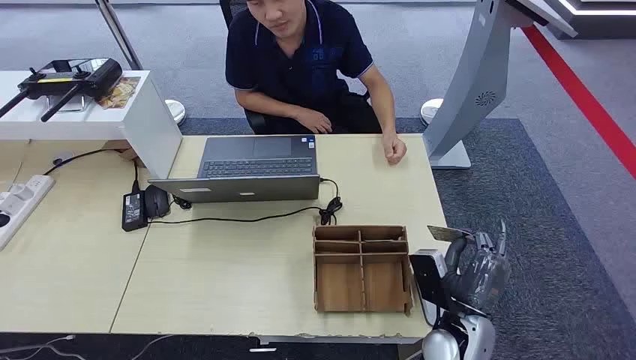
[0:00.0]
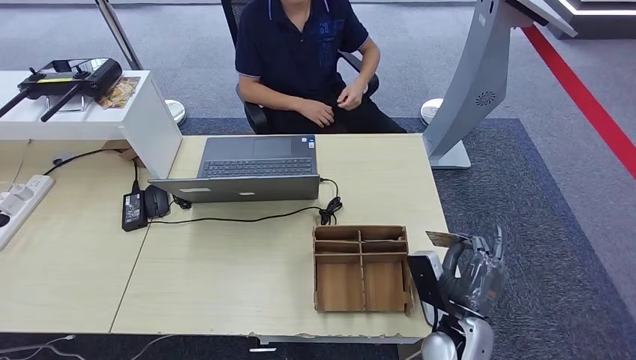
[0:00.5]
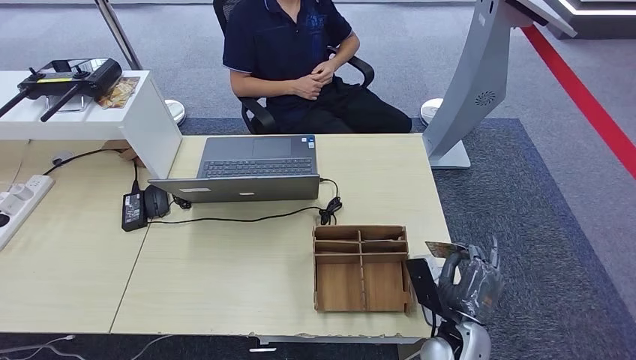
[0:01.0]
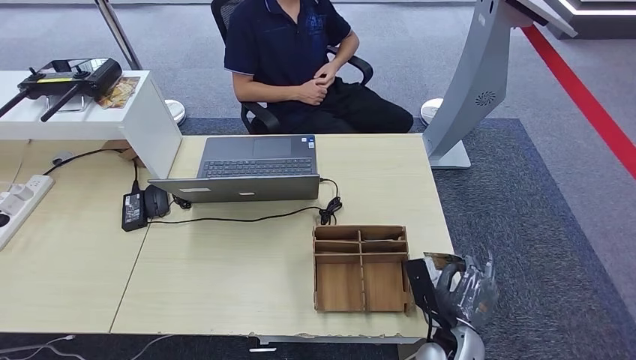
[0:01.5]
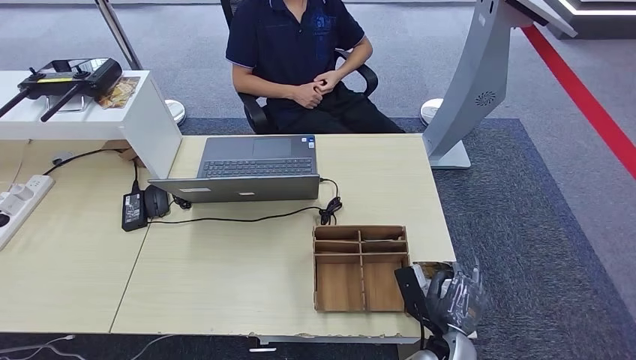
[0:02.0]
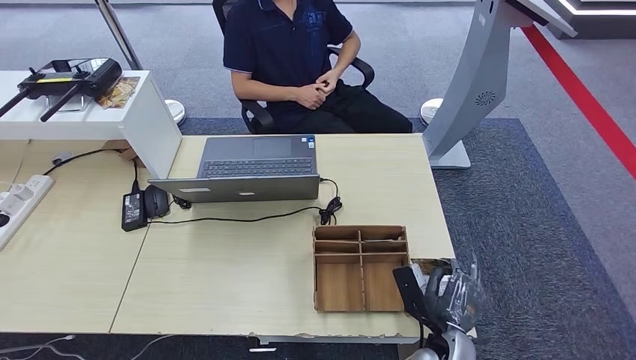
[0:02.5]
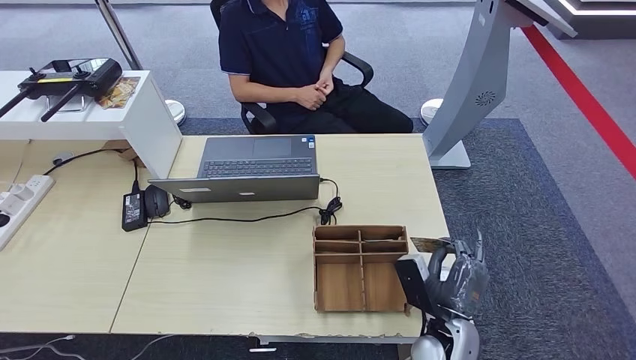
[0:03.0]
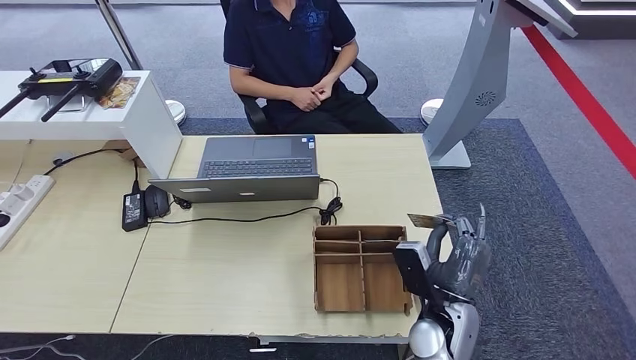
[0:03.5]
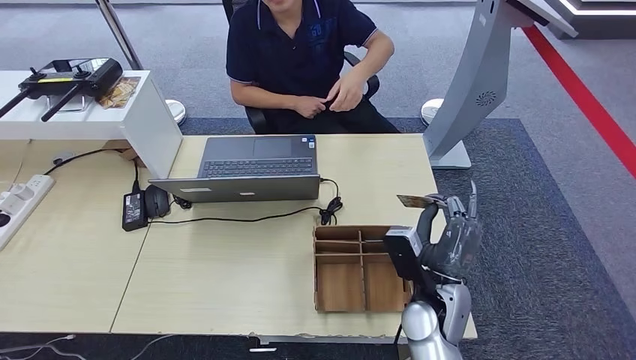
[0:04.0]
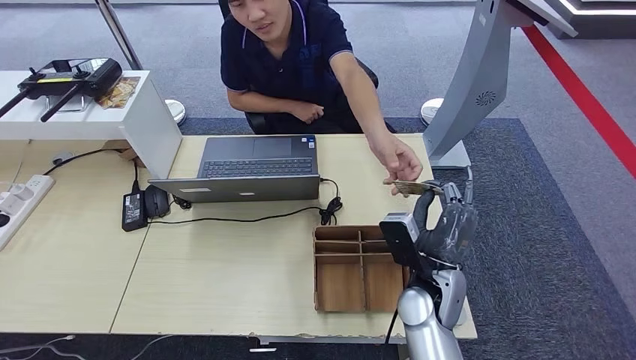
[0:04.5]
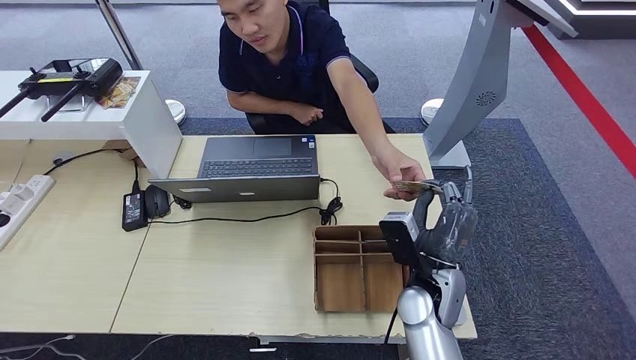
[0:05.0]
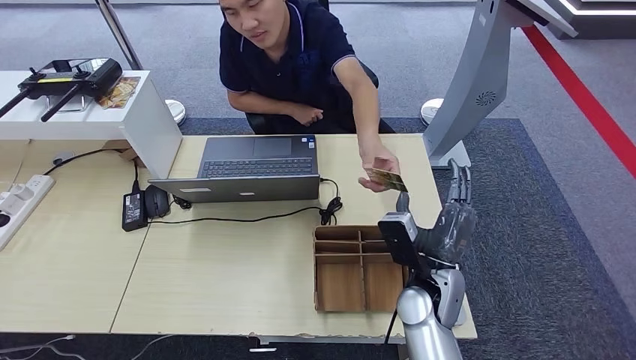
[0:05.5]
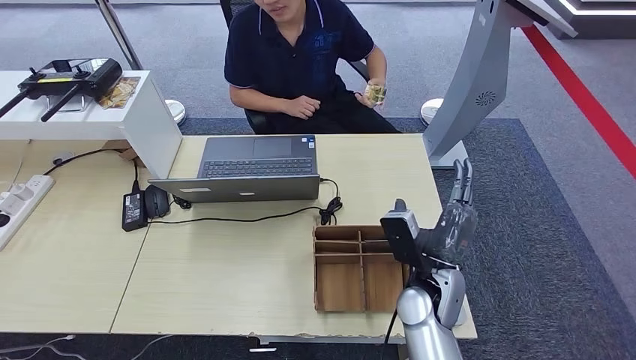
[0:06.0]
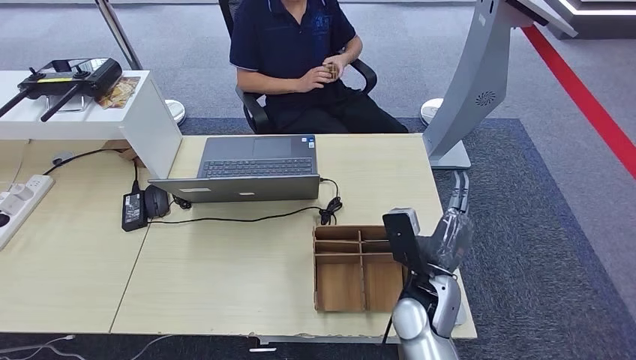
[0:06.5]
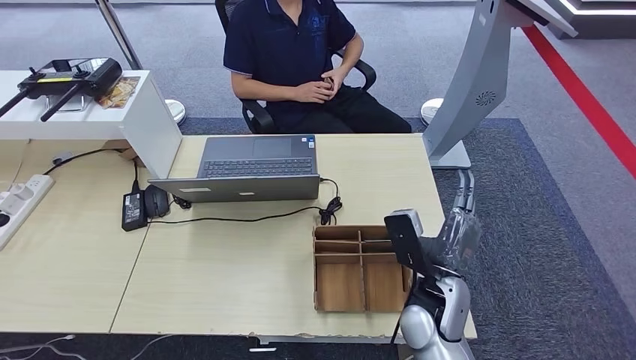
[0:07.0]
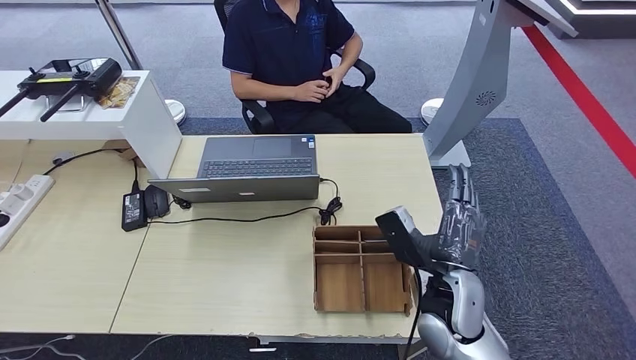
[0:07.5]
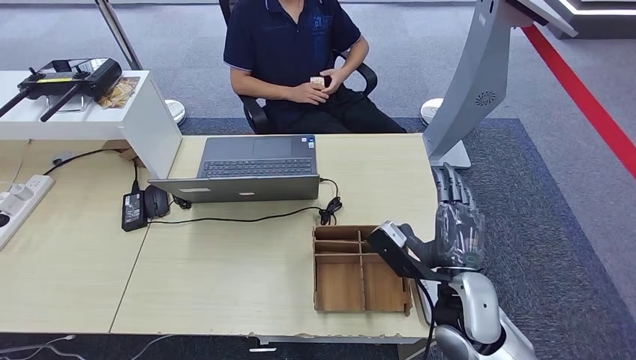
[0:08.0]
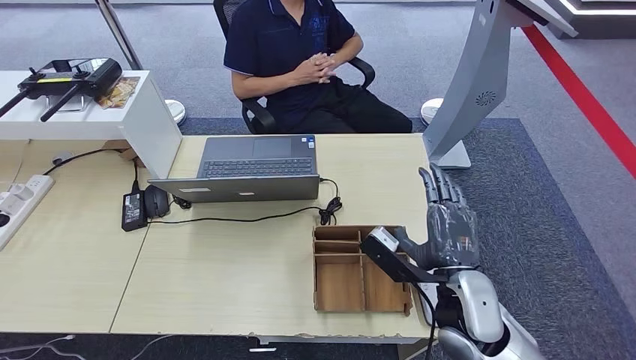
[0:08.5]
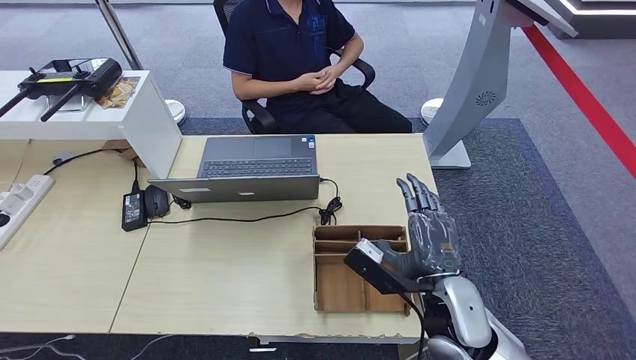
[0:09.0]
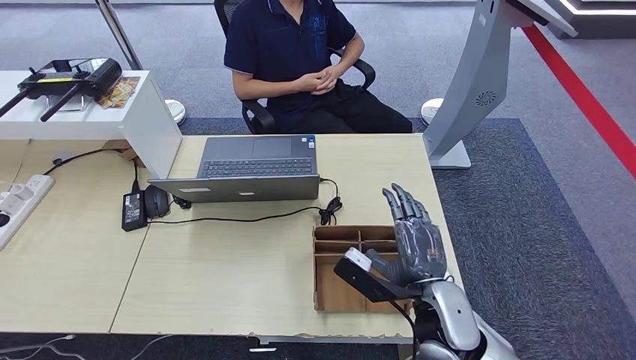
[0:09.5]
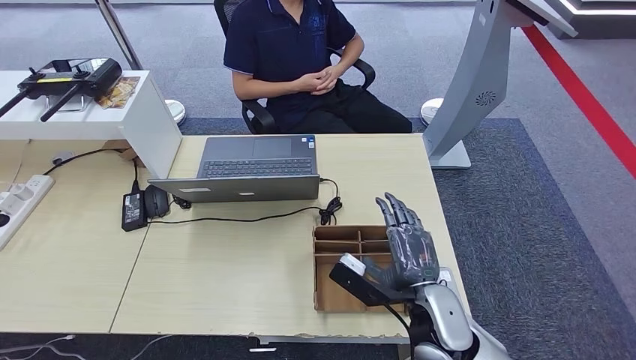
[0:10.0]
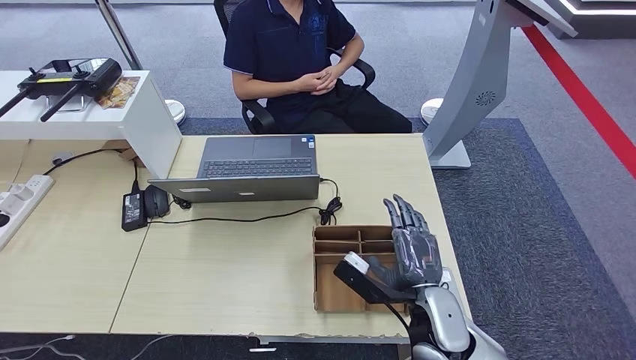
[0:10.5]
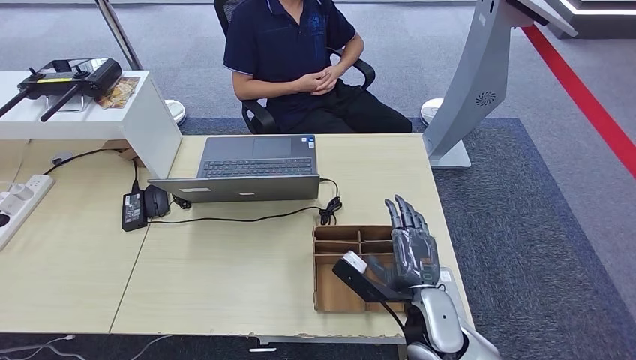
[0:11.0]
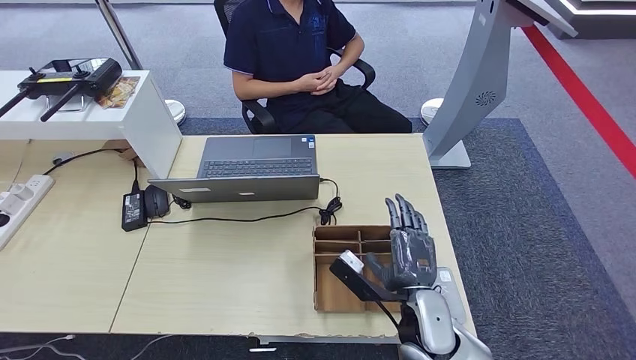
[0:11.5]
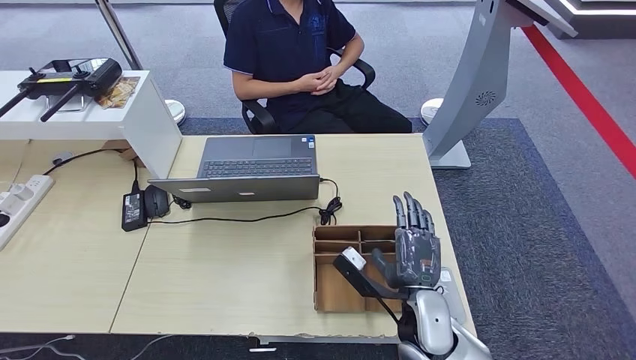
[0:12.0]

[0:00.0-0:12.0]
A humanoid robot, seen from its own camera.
Step, 0:00.0 to 0:01.0: Take the ID card from the person's hand.
Step, 0:01.5 to 0:02.0: Place the ID card on the card reader.
Step, 0:02.5 to 0:06.5: Hand the ID card to the person.
0:02.0 to 0:04.0: The right hand is displaced upward and forward by roughly 10 cm.
0:04.0 to 0:06.0: The hands move only a little.
0:06.0 to 0:08.0: The right hand ends up some 5 cm from where it was.
0:08.0 to 0:10.0: The hands move only a little.
0:10.0 to 0:12.0: The hands move only a little.

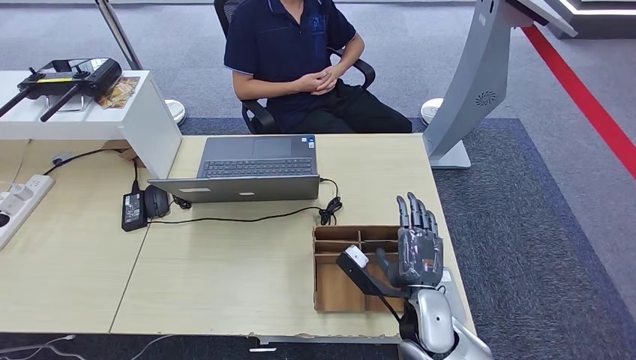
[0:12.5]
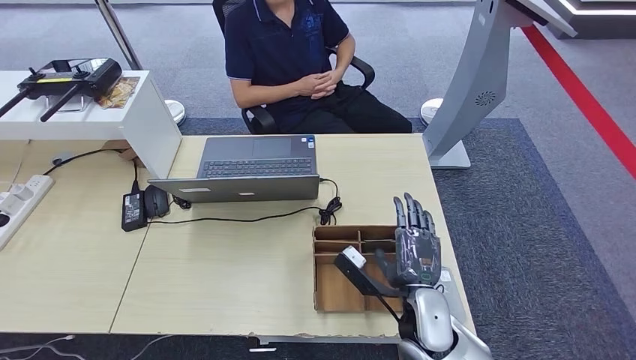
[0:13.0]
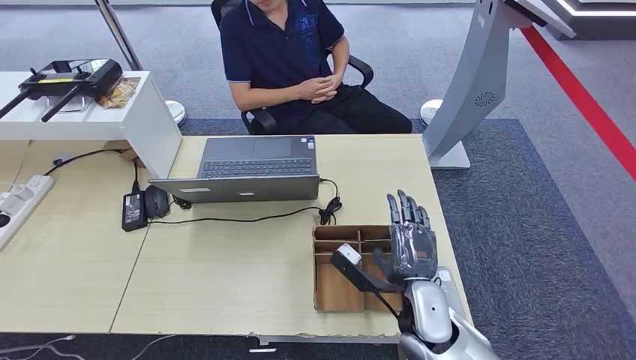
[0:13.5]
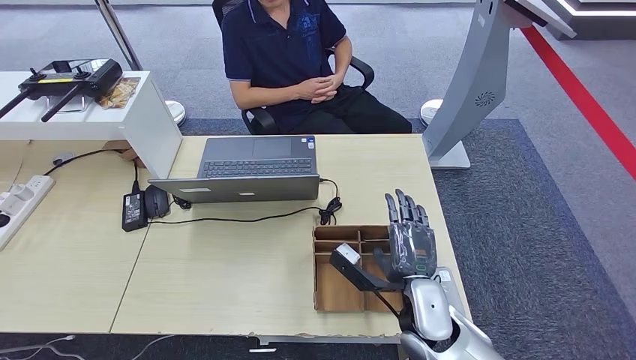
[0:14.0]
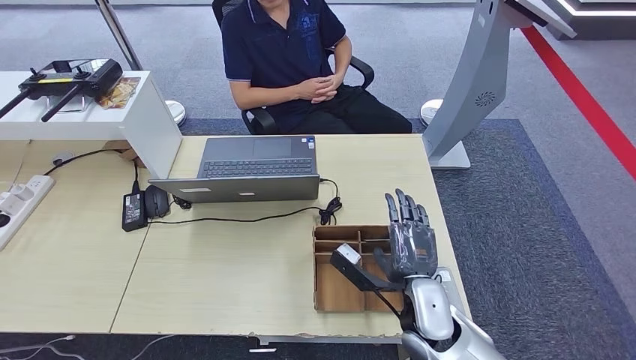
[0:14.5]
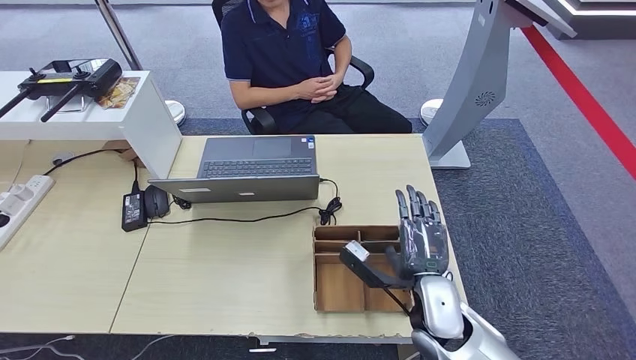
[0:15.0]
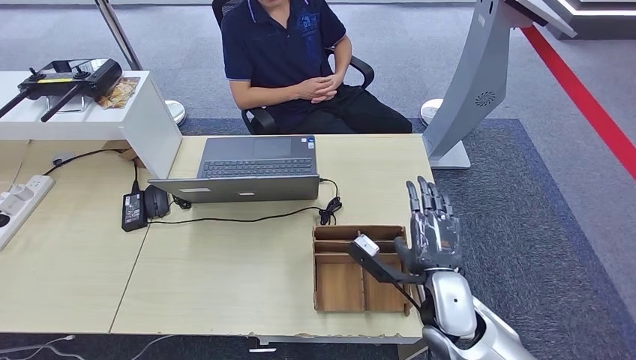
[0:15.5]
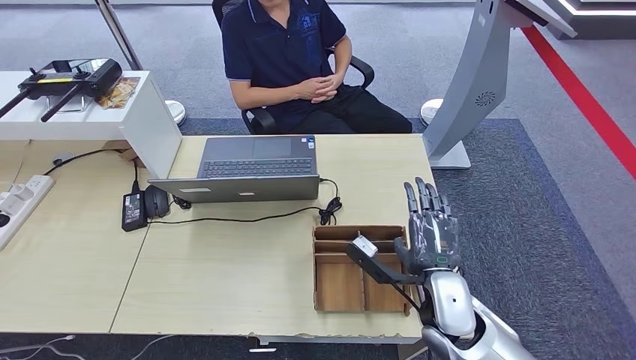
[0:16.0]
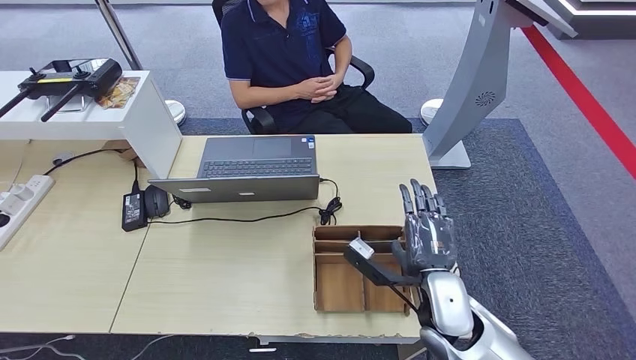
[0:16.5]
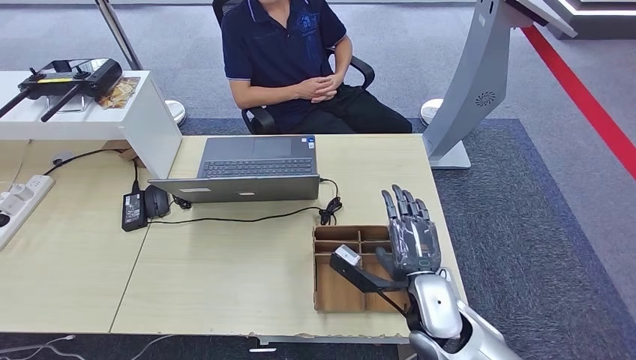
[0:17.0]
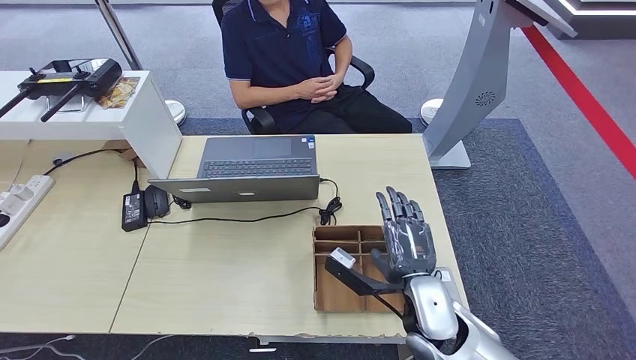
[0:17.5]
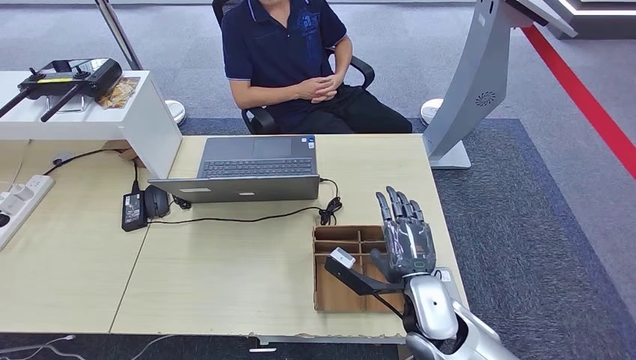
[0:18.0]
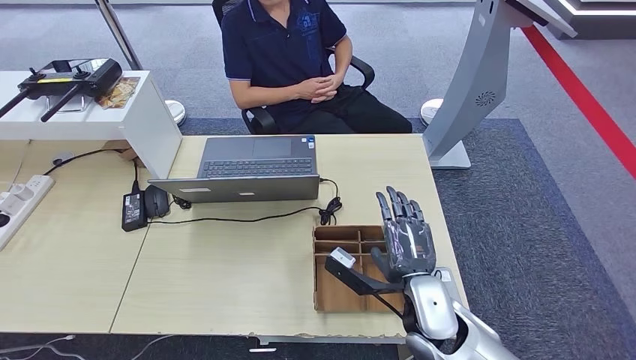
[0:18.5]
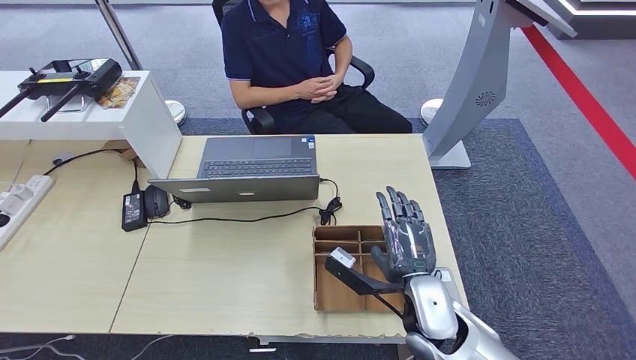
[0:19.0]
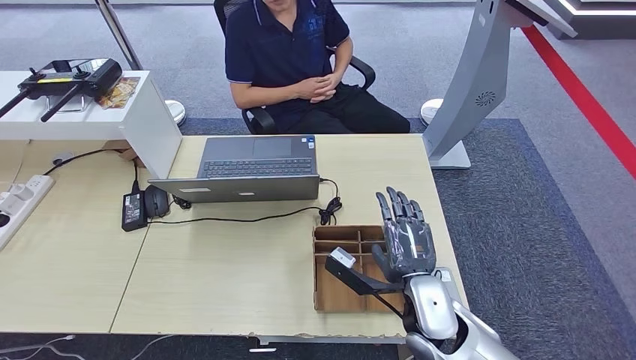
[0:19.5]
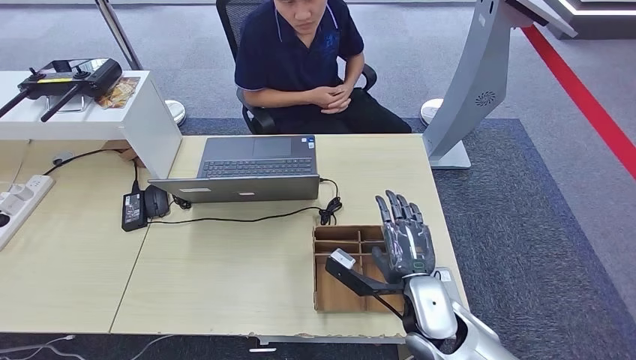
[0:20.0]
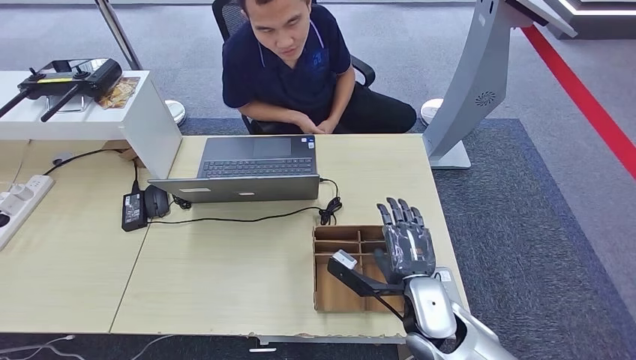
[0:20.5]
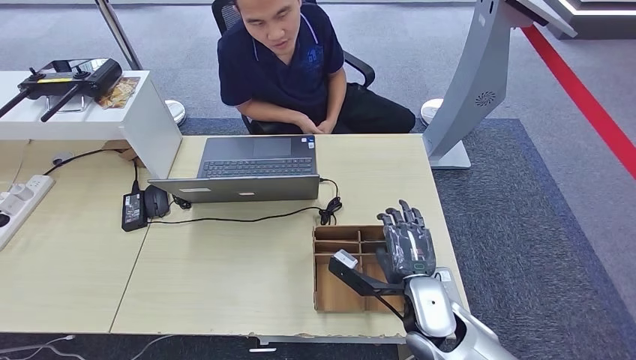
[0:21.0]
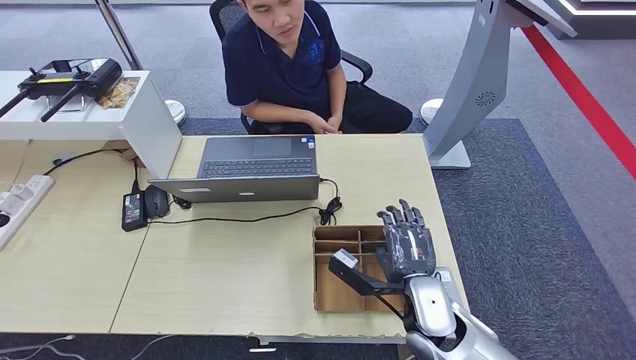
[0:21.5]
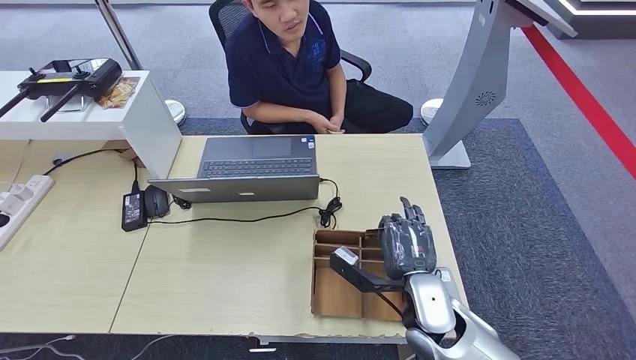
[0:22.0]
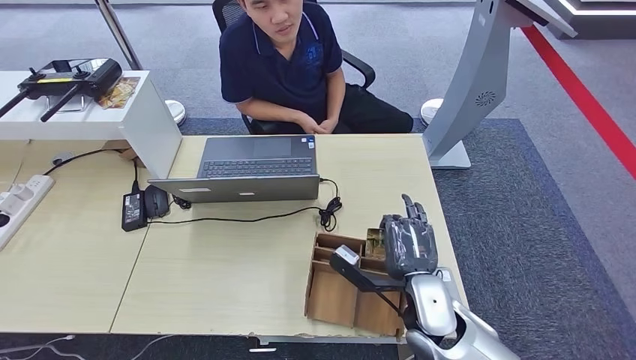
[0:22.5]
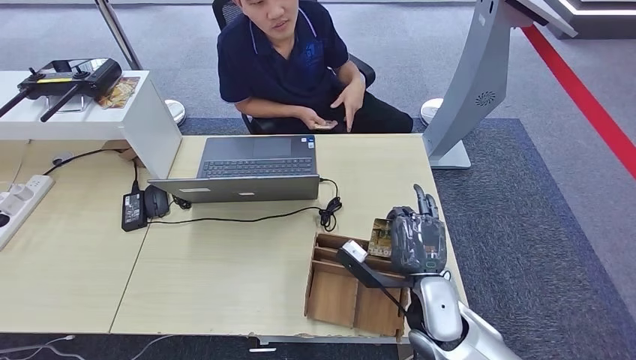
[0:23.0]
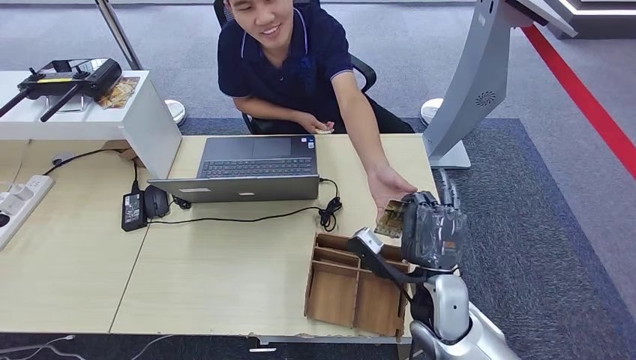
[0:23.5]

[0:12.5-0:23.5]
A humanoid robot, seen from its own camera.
0:12.5 to 0:18.0: There are only small adjustments of the hands.
0:18.0 to 0:20.0: Both hands stay about where they are.
0:20.0 to 0:21.5: Both hands stay put.
